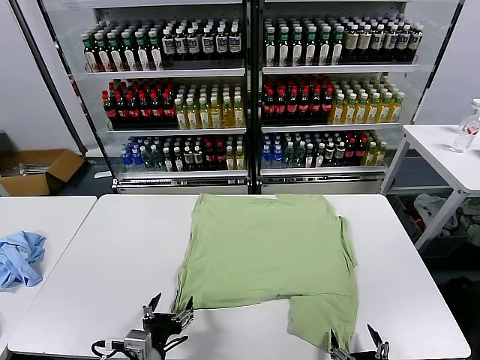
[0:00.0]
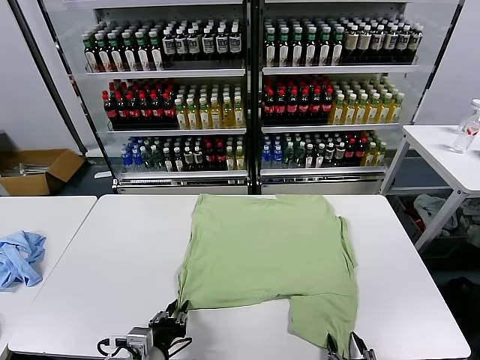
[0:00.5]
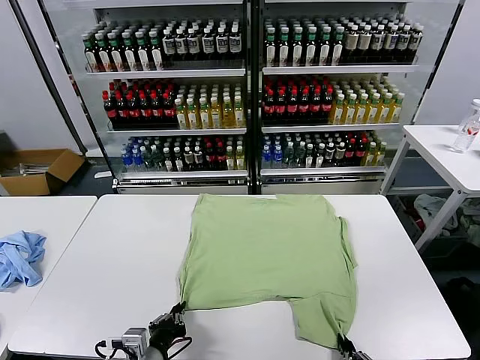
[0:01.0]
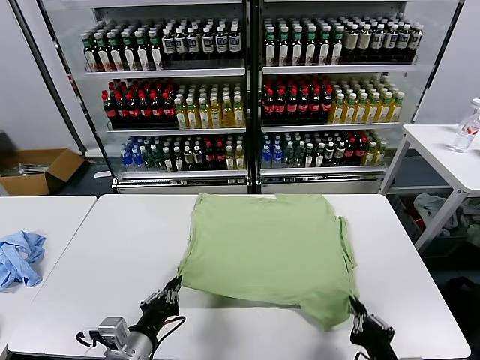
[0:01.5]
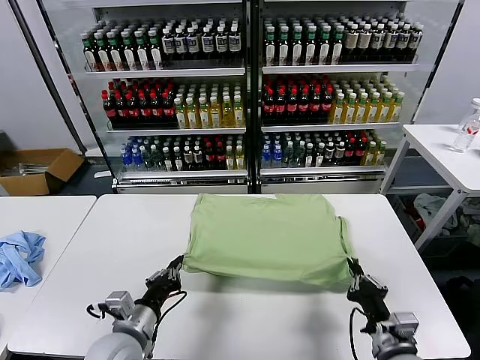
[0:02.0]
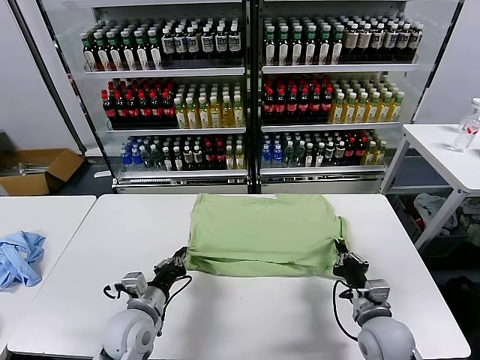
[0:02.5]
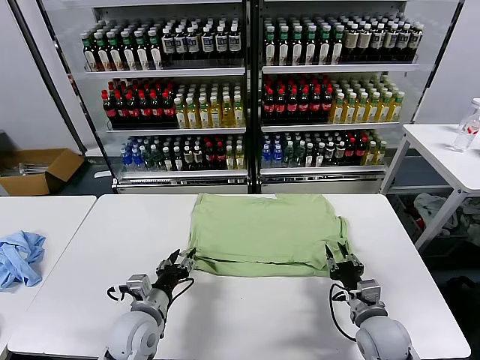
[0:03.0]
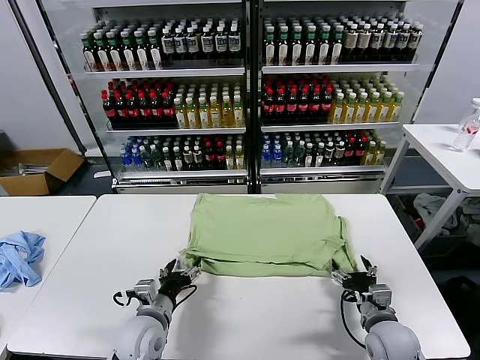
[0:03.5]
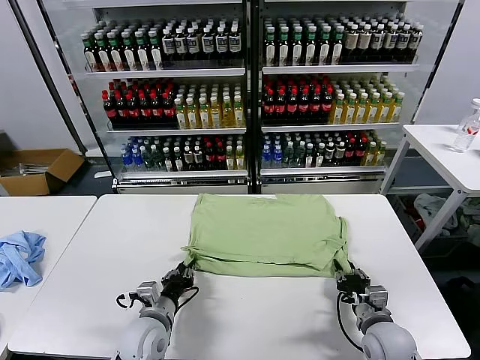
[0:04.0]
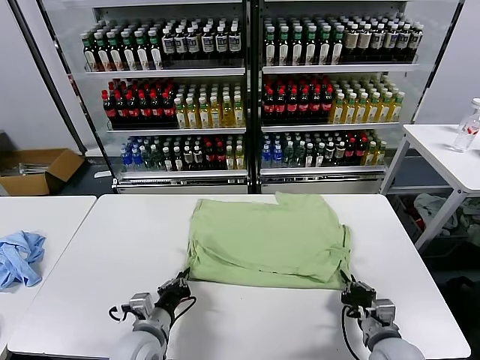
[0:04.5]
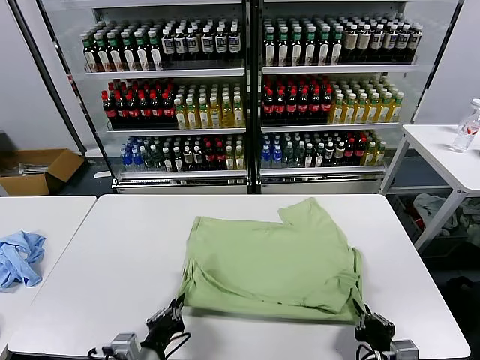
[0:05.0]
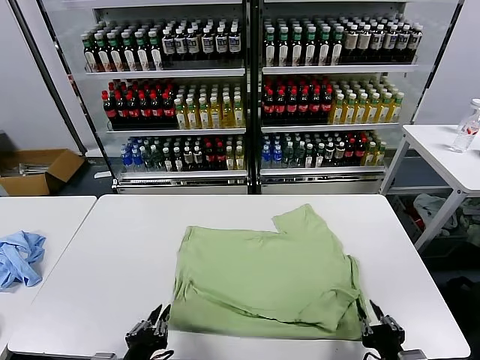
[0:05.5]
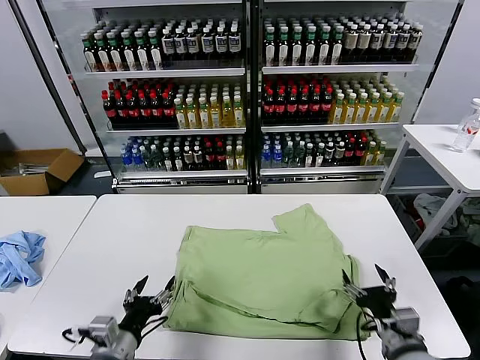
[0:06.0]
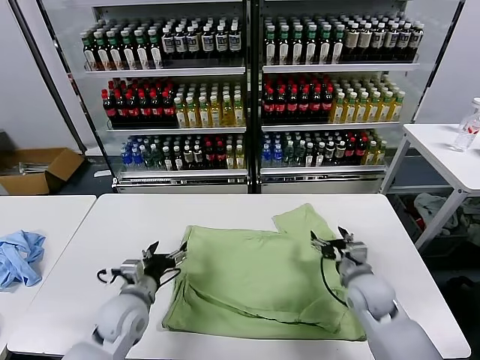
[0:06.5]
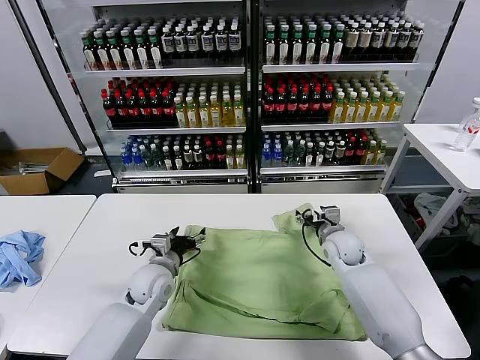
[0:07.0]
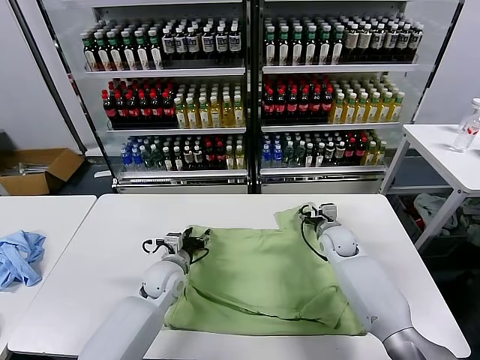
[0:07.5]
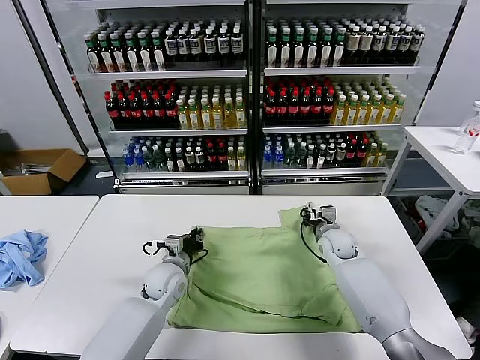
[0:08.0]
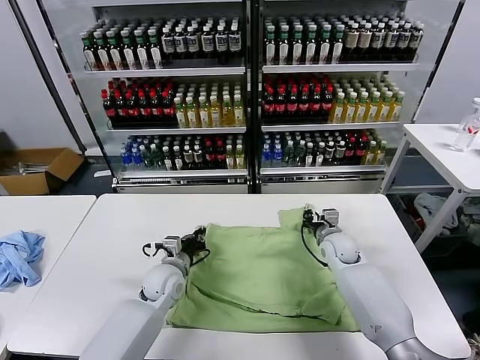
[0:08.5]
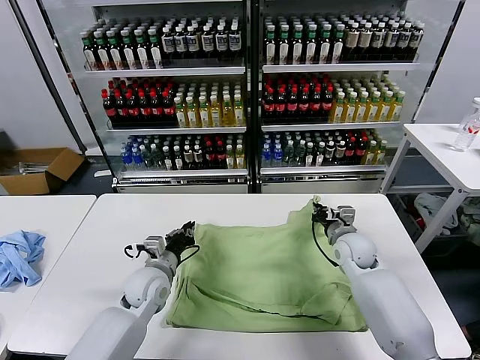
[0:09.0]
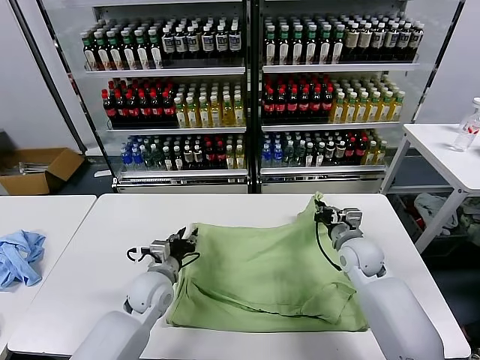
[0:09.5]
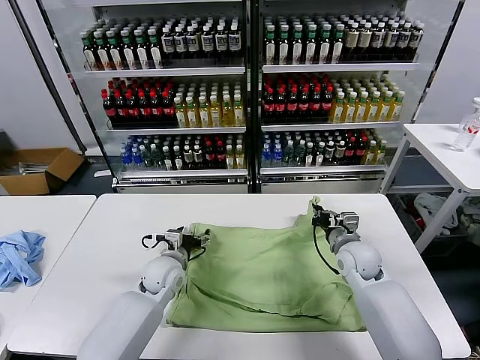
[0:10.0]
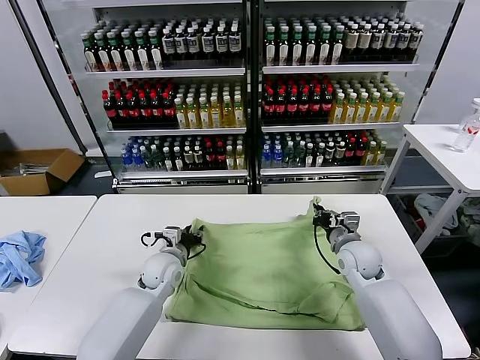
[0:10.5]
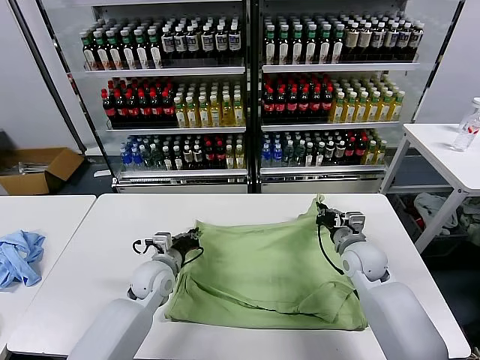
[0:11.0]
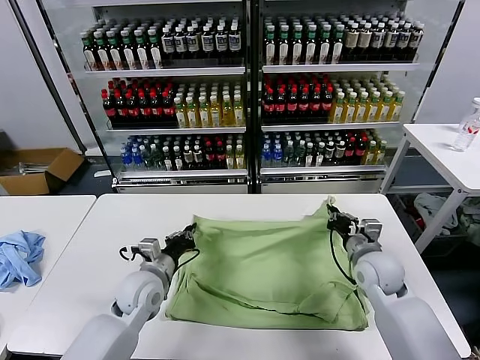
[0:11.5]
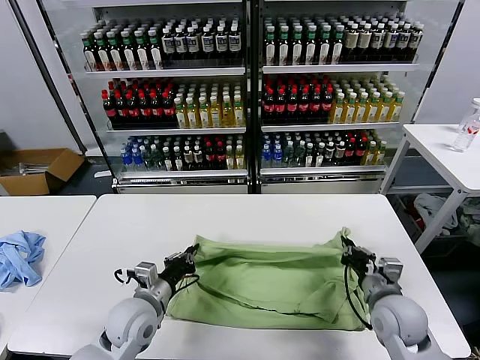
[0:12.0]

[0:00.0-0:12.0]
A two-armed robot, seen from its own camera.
Task of the whole recording: fold and organize the clothes.
Step, 0:00.0 to 0:01.0: use both grippers simultaneously to clamp the lower edge of the clothing fabric.
Step, 0:01.5 to 0:02.5: use both grippers to drag the lower edge of the fabric forward and fold it over the upper edge.
Step, 0:03.0 to 0:05.0: Drag the clothes downward with both gripper.
Step, 0:06.0 to 0:08.0: use both grippers simultaneously to clamp the upper edge of the clothing fabric.
0:02.0 to 0:04.0: The right gripper changes place by about 5 cm, and opens and closes again. Meanwhile the left gripper travels downward by some 5 cm, and opens, then closes again.
0:04.0 to 0:06.0: The right gripper shifts approximately 5 cm upward, moves about 15 cm backward and comes back, and opens its fingers; the left gripper heads backward and upward, covering about 10 cm, and opens its fingers.
0:06.0 to 0:08.0: Both grippers travel together forward, some 25 cm. The right gripper closes up. The left gripper closes its fingers.
0:08.0 to 0:10.0: The left gripper opens; the right gripper moves backward and upward, some 10 cm.
0:10.0 to 0:12.0: Both grippers move backward, about 15 cm. The left gripper closes up.

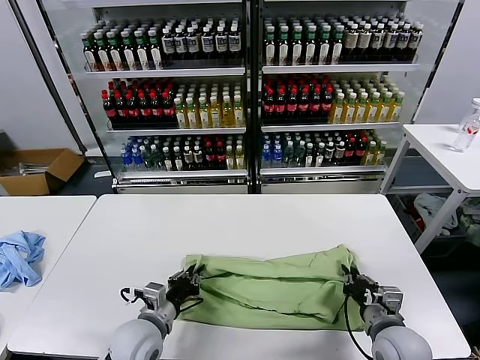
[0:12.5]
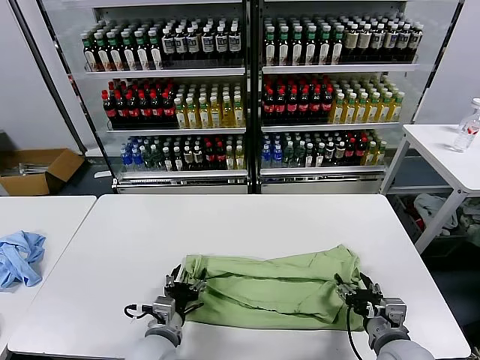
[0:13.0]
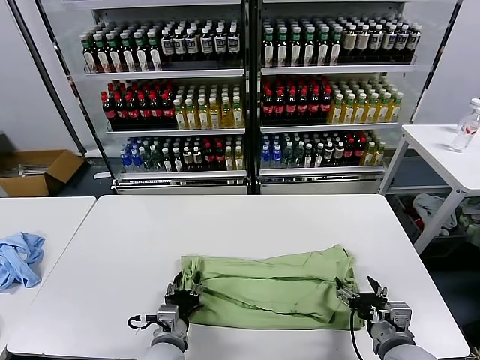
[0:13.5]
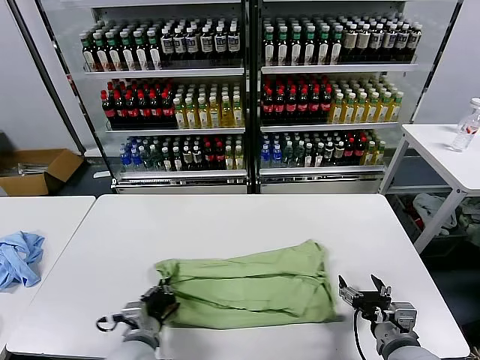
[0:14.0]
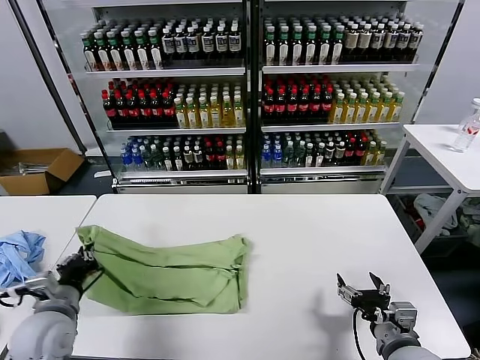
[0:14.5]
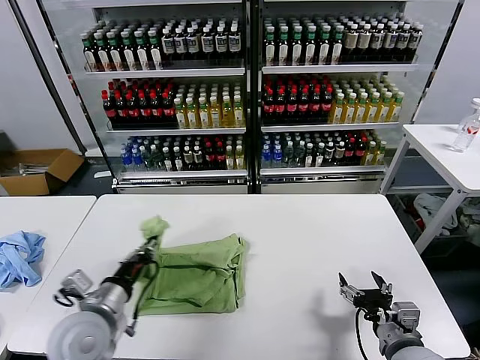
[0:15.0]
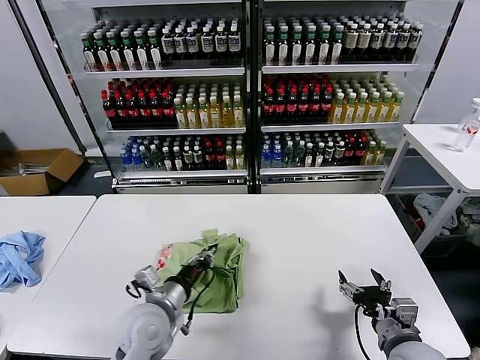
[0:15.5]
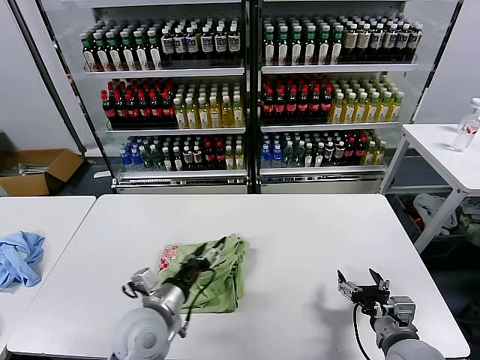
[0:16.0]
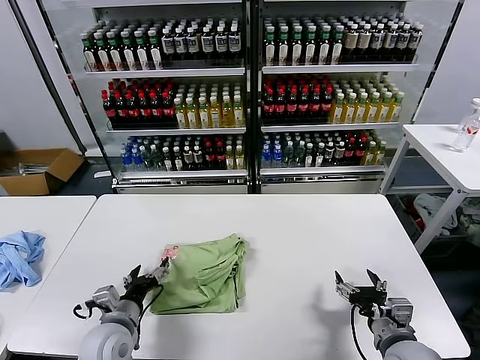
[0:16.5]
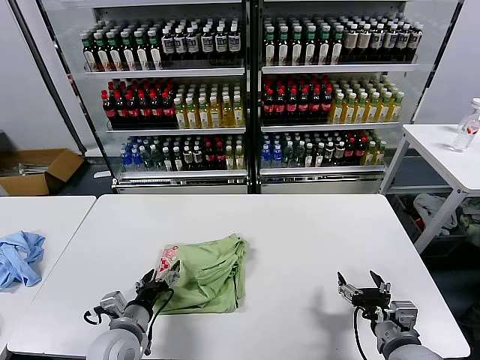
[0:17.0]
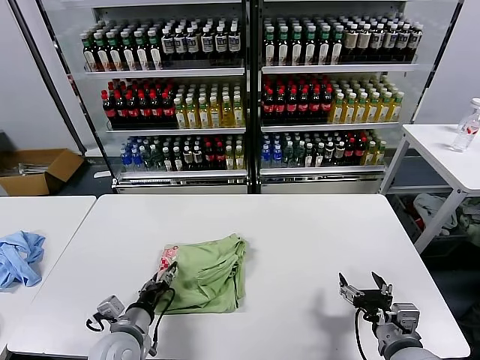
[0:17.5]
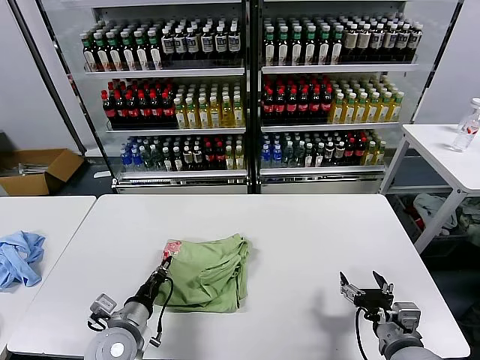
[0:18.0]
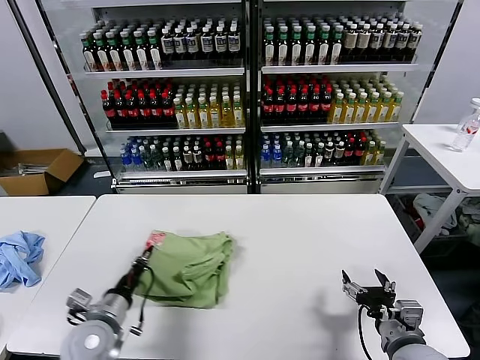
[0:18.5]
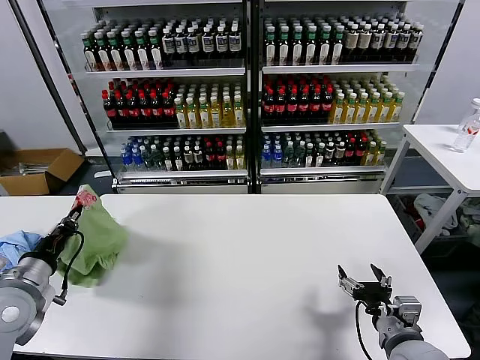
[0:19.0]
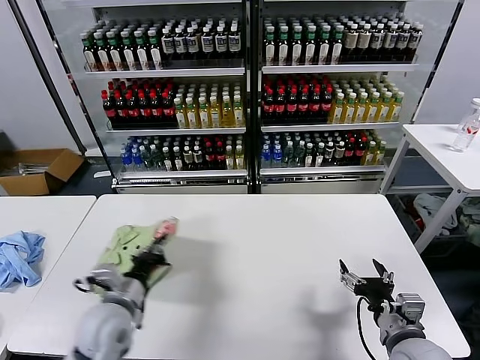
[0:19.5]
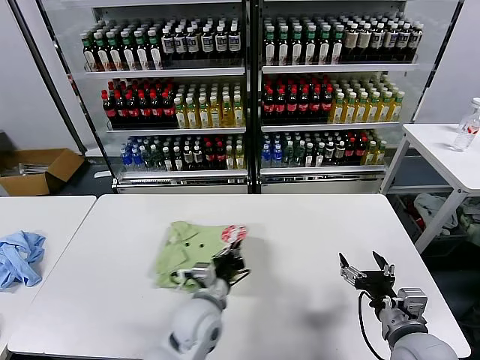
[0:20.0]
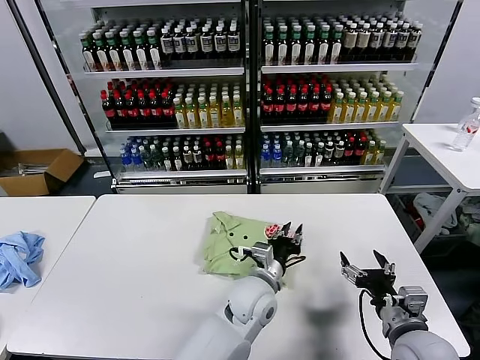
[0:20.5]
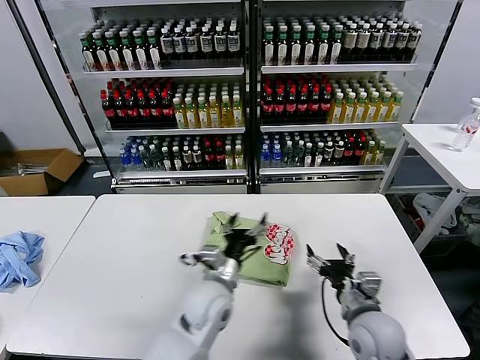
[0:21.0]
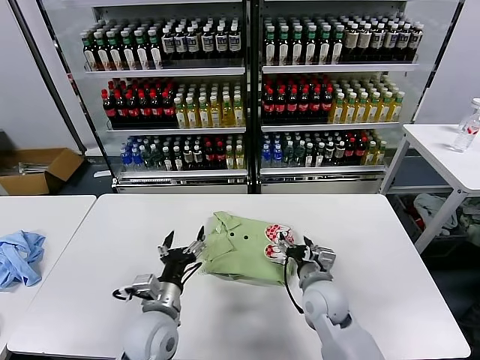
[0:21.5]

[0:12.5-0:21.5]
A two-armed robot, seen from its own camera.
Task of the whole recording: fold and organize the clothes.
Step, 0:13.0 to 0:13.5: use the left gripper to clamp the left edge of the fabric.
Step, 0:14.0 to 0:15.5: use the left gripper to drag the left edge of the fabric to the left and folds it over the right edge.
Step, 0:16.0 to 0:20.0: Flip the folded clothes over with left gripper.
0:12.5 to 0:14.5: The right gripper opens up, while the left gripper goes about 15 cm to the left and upward, and opens, then closes once more.
0:14.5 to 0:17.0: The left gripper moves to the right and downward, roughly 15 cm, and opens up.
0:17.0 to 0:19.5: The left gripper travels upward by approximately 5 cm, moves about 15 cm to the left and comes back, and closes.
0:19.5 to 0:21.5: The left gripper goes to the right and returns, some 30 cm each way, and opens its fingers, while the right gripper heads forward and to the left, covering roughly 20 cm.

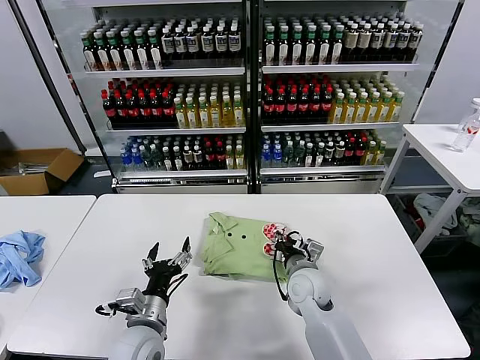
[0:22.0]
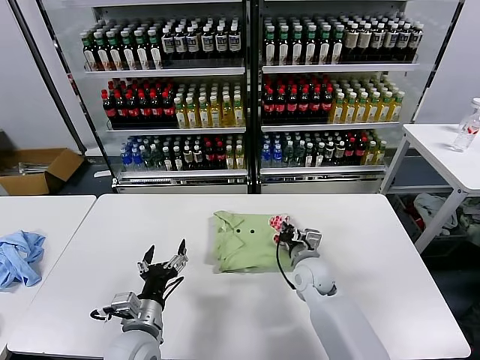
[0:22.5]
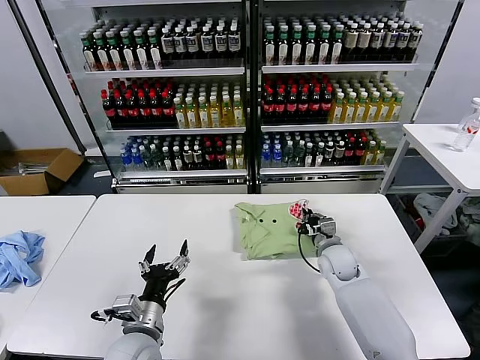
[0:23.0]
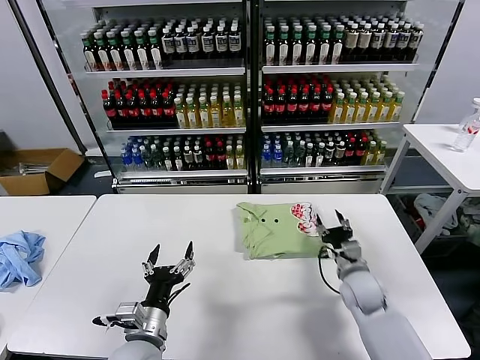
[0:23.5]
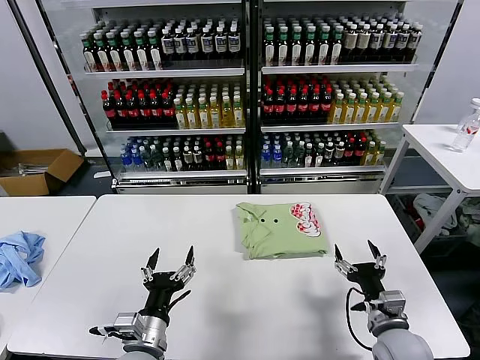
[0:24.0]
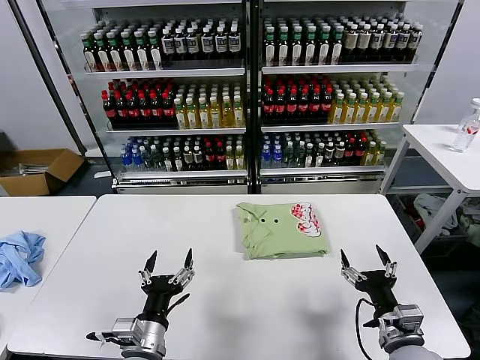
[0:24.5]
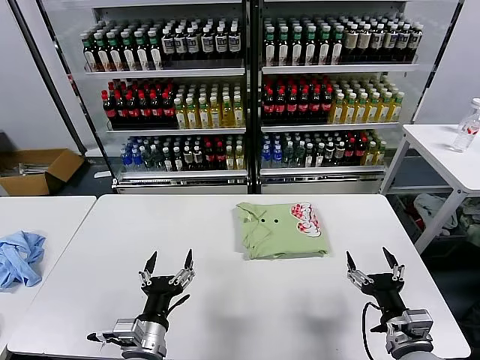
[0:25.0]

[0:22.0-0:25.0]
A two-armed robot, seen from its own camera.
Task of the whole recording: fold and organize the clothes.
0:22.0 to 0:23.5: The right gripper moves to the right, some 15 cm, and closes, then opens again.
0:23.5 to 0:25.0: The right gripper travels backward by about 20 cm, and opens up.
